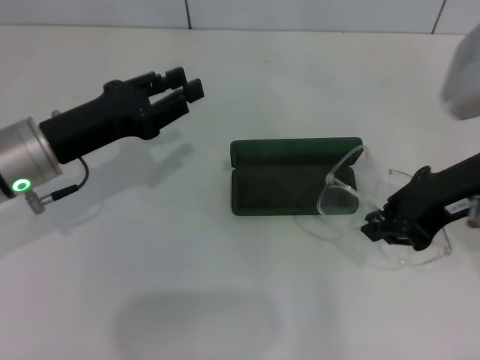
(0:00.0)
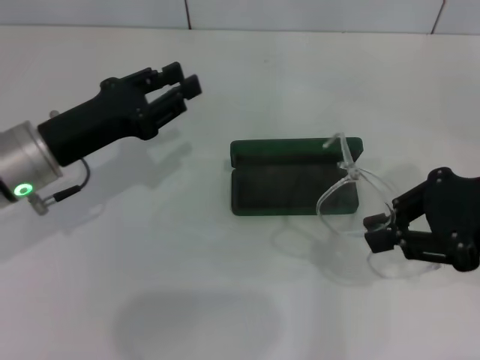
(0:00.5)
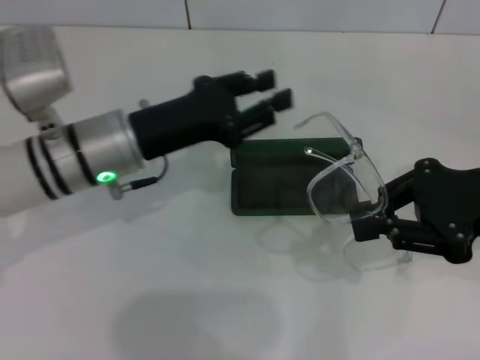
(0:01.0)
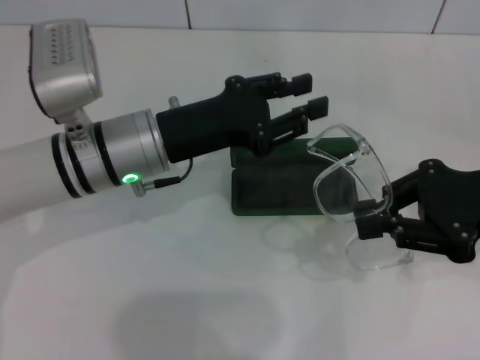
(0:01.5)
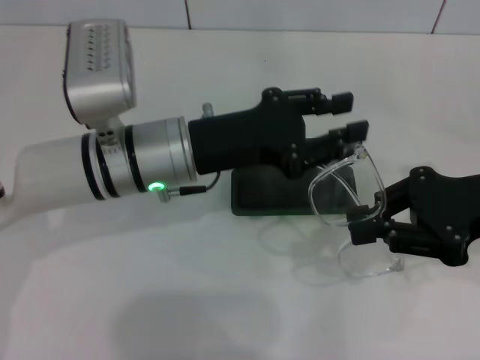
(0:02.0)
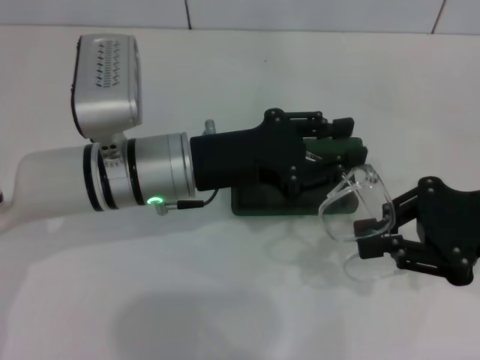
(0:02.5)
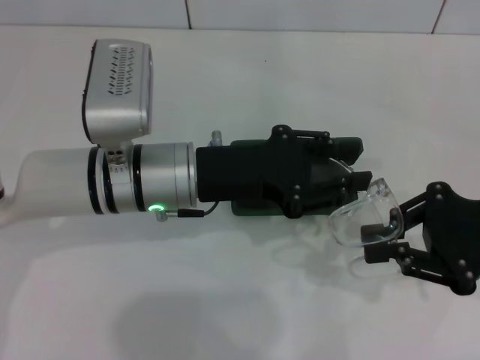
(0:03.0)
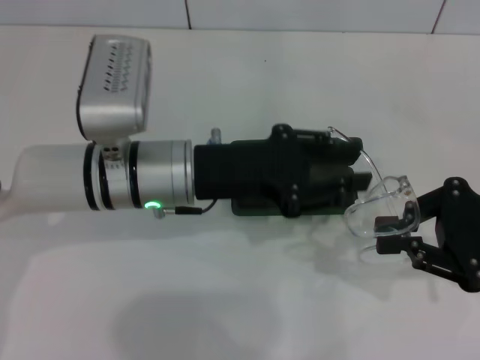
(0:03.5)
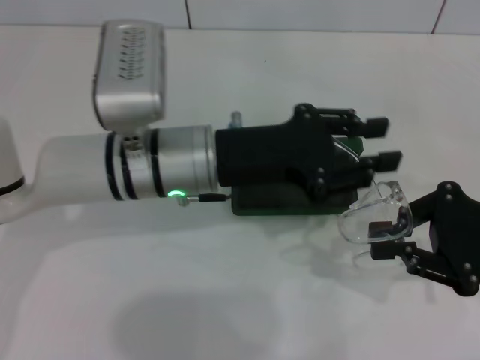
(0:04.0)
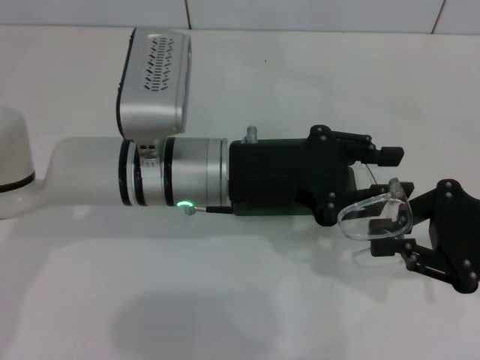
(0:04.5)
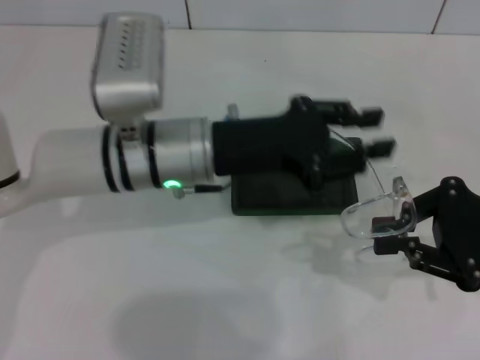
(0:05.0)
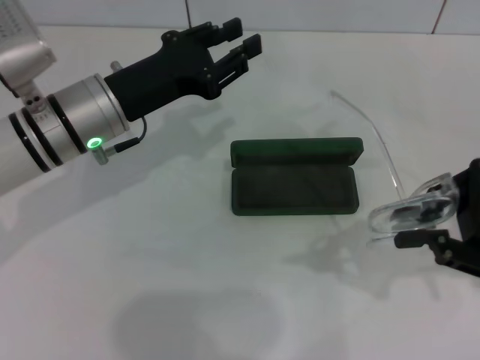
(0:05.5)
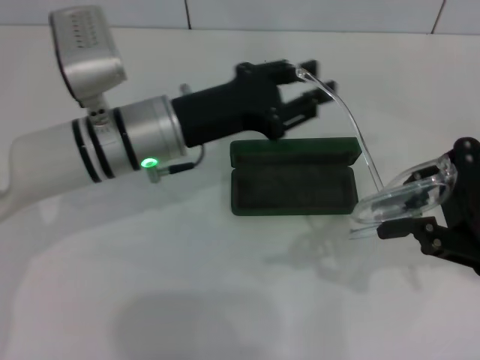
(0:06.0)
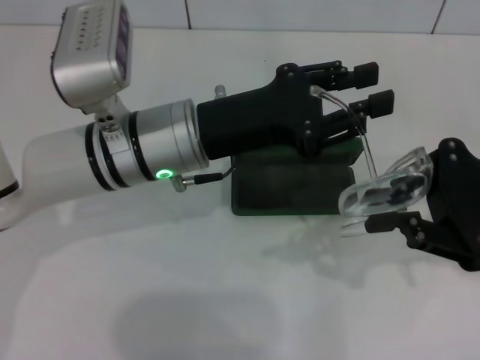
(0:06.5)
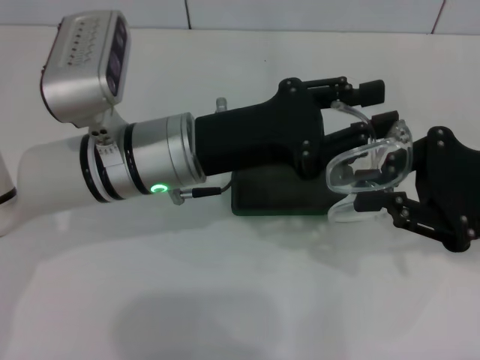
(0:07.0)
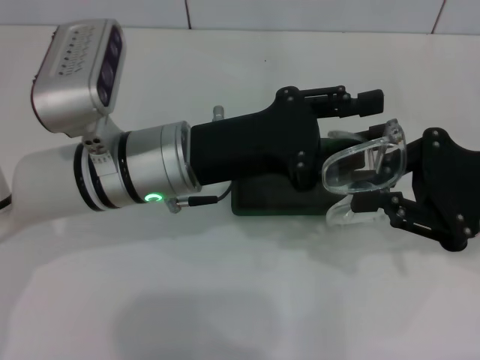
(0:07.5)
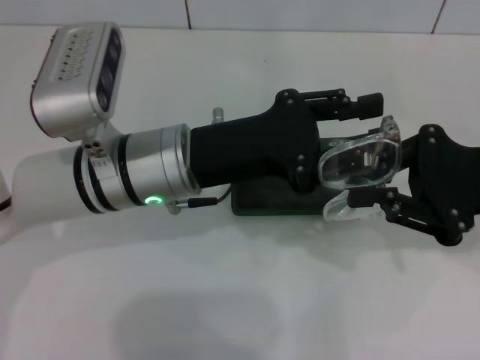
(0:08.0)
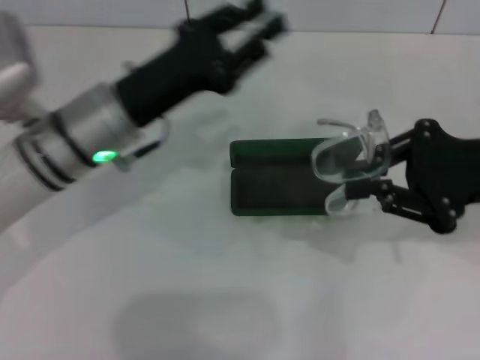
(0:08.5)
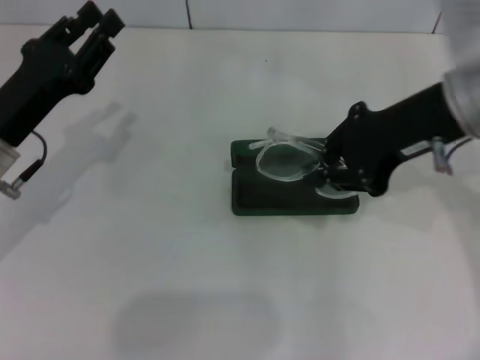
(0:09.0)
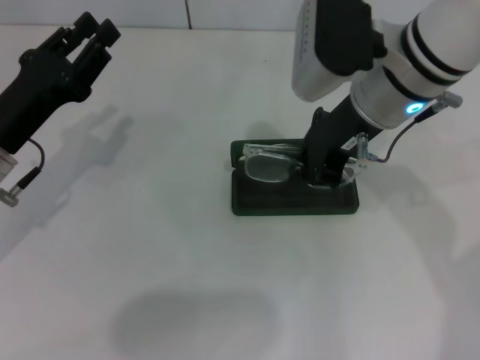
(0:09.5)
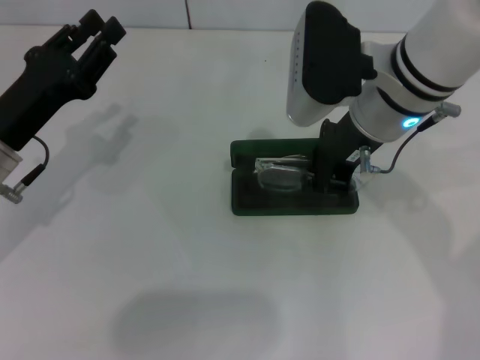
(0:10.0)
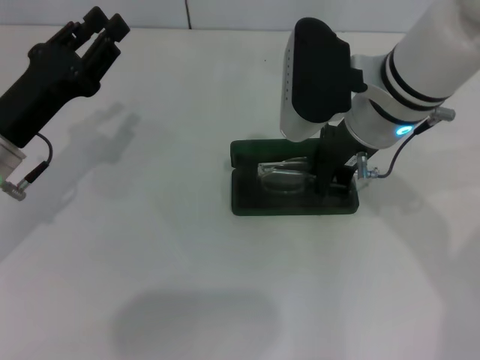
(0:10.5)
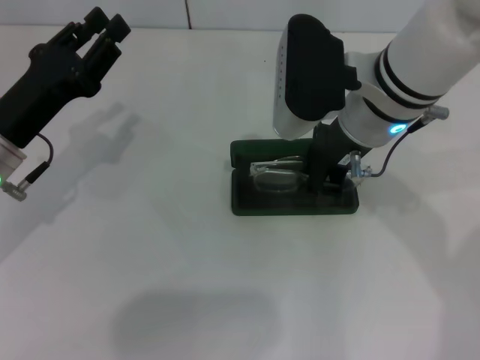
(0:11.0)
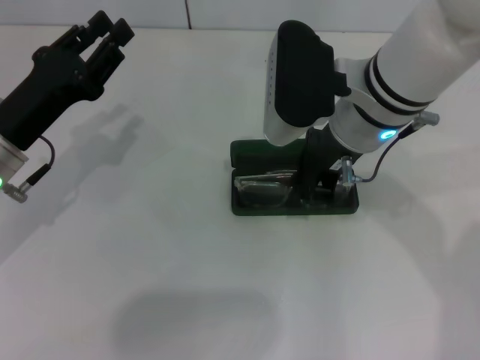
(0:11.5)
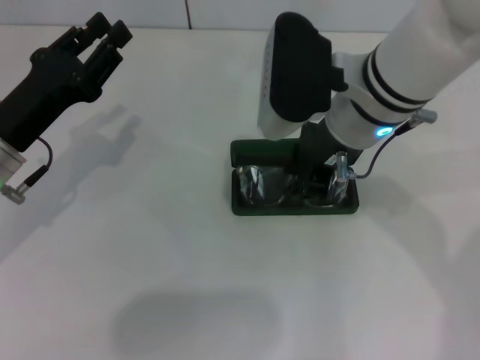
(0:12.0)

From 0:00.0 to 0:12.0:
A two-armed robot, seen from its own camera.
Step, from 0:00.0 to 0:08.0: Fold the frame with your left hand.
Step, from 0:08.5 to 0:12.0: Put the glasses into the case with your right hand.
From 0:00.0 to 0:02.0: The left gripper is displaced to the right by roughly 10 cm. The right gripper moves to the right, roughly 5 cm.
From 0:04.0 to 0:06.0: The left gripper moves approximately 10 cm to the left and comes back.
From 0:08.0 to 0:10.0: The right gripper travels to the left and forward by some 15 cm. Meanwhile the left gripper travels to the left by roughly 15 cm.
From 0:10.0 to 0:12.0: There are only small adjustments of the grippers.

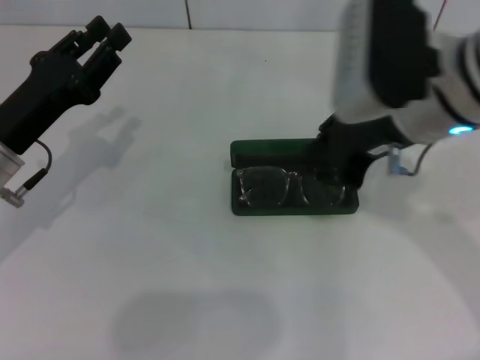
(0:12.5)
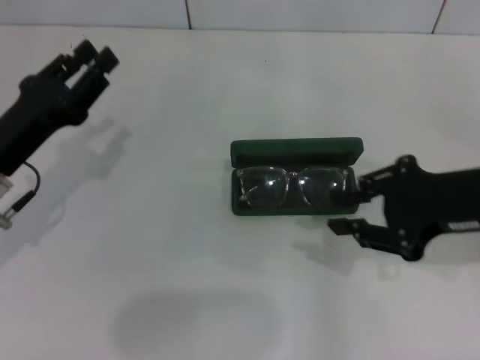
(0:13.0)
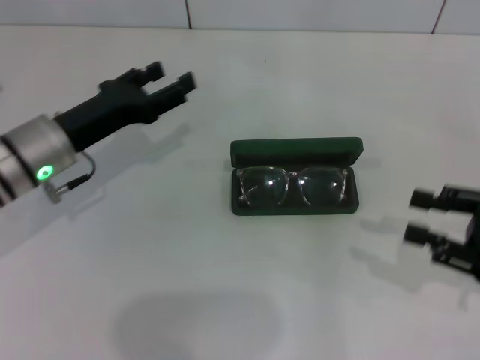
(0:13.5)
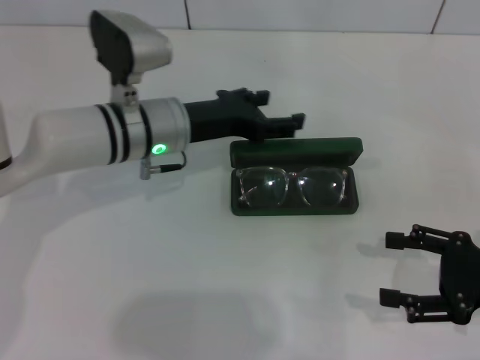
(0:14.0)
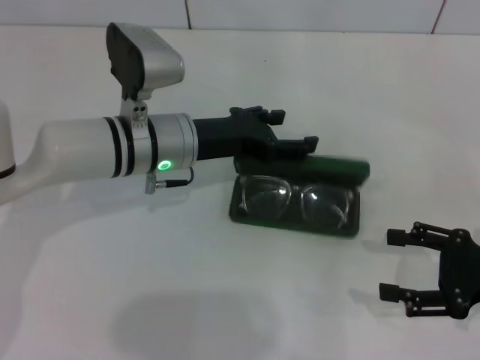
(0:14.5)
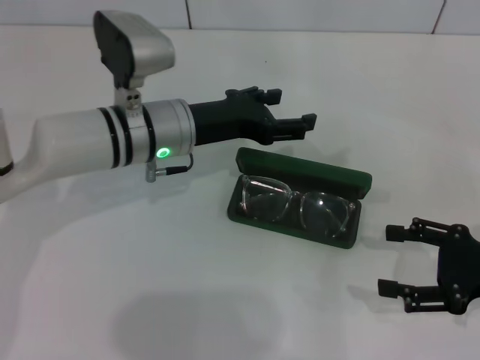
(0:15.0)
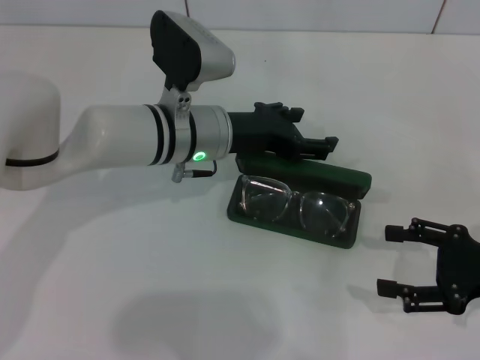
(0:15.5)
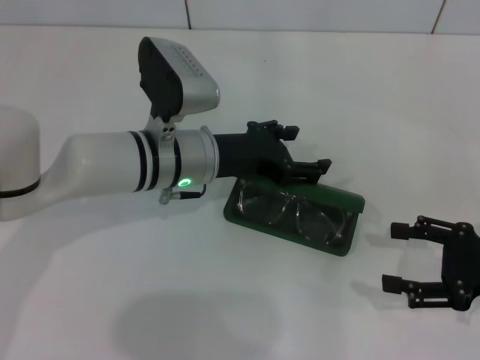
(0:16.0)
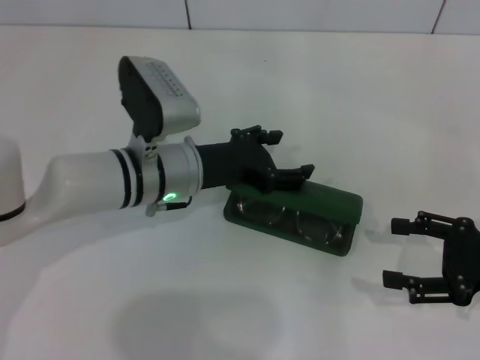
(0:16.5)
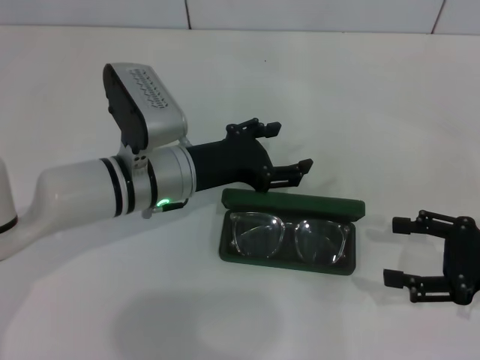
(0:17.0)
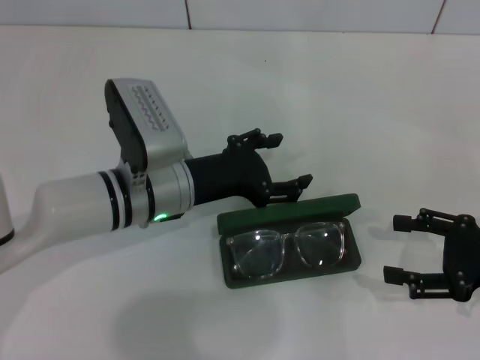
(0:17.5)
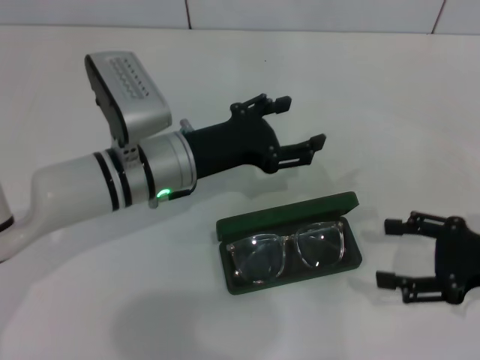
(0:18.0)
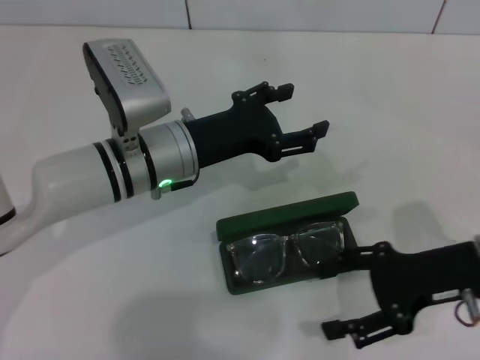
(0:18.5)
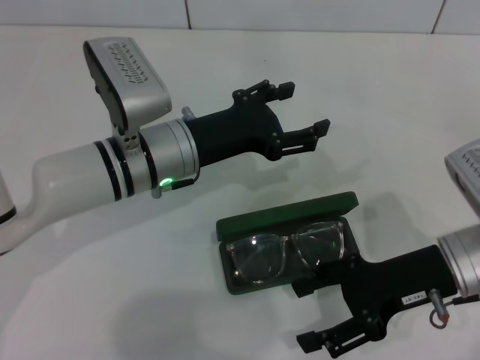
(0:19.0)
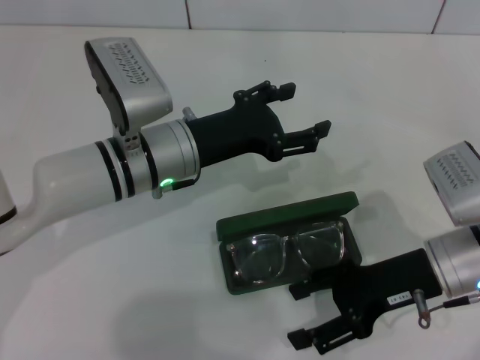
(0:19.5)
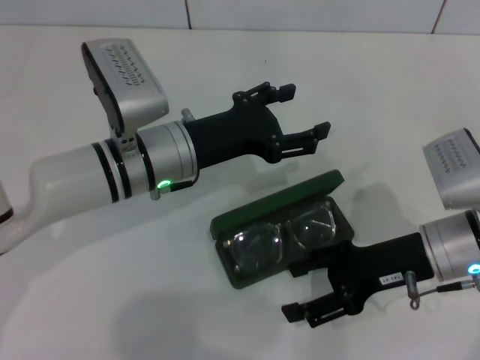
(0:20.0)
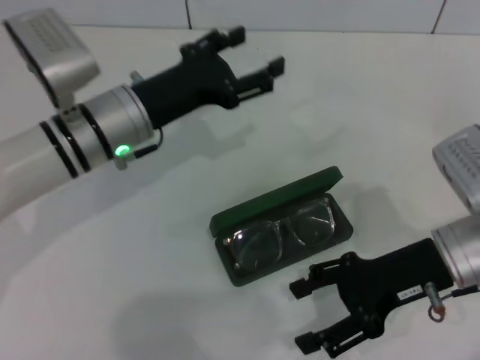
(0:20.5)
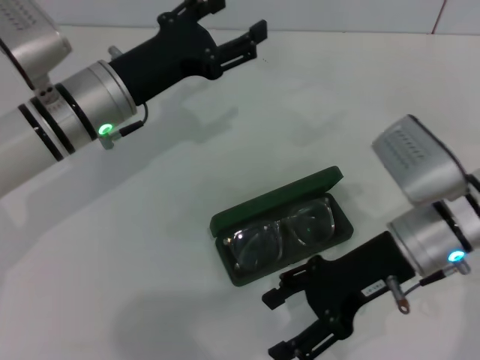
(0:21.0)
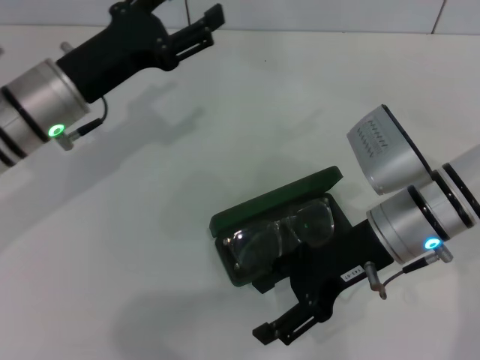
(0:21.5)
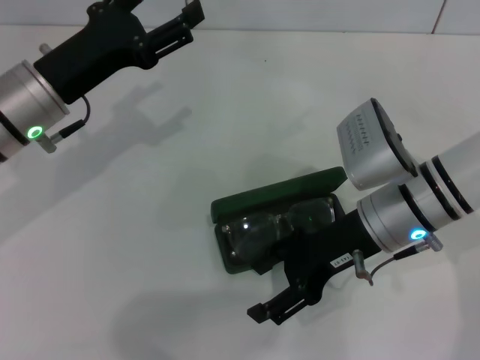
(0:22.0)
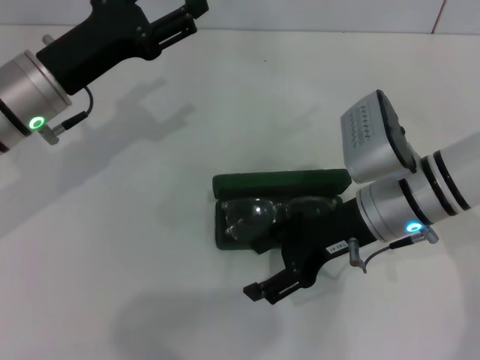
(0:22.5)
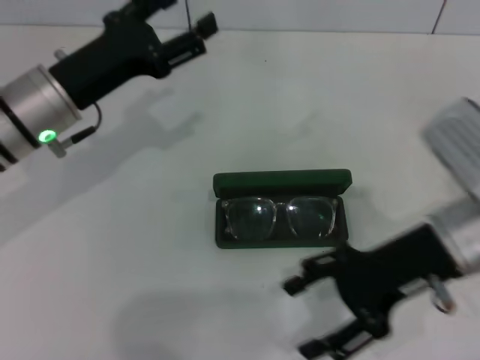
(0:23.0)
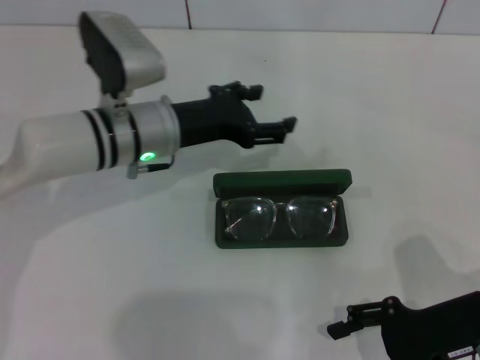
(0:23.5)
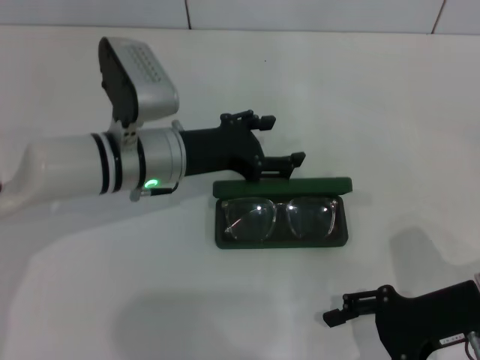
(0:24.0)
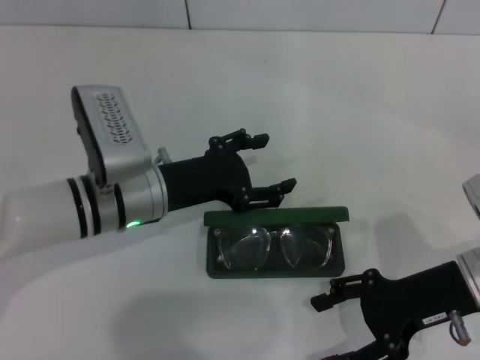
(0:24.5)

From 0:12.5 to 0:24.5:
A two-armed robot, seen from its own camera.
From 0:12.5 to 0:14.5: The left gripper moves to the right and forward, roughly 15 cm, and opens its fingers. Meanwhile the right gripper heads to the right, downward and backward, covering some 25 cm, and opens.
From 0:14.5 to 0:16.5: The grippers stay close to where they were, moving slightly.
From 0:16.5 to 0:18.5: The right gripper is displaced to the left by about 5 cm.
From 0:20.5 to 0:22.5: The two grippers go about 5 cm to the left.
From 0:22.5 to 0:24.5: The right gripper moves to the right and backward, approximately 10 cm. Meanwhile the left gripper shifts roughly 10 cm downward and to the right.

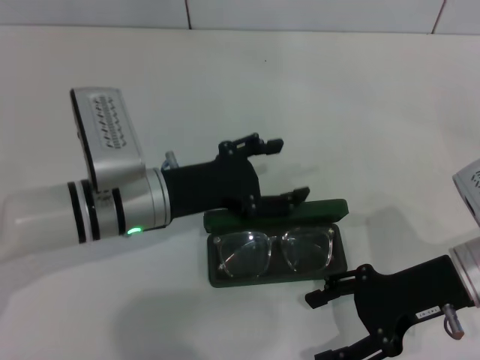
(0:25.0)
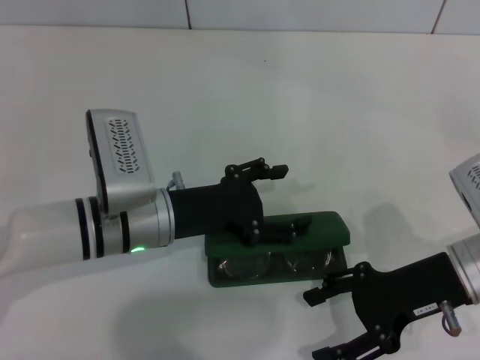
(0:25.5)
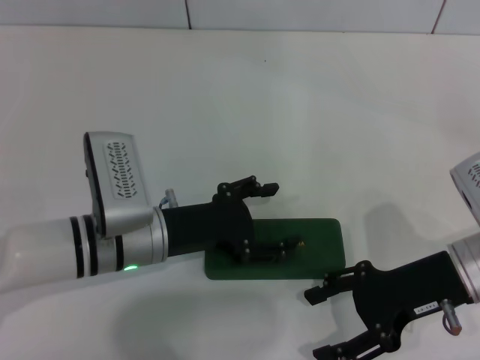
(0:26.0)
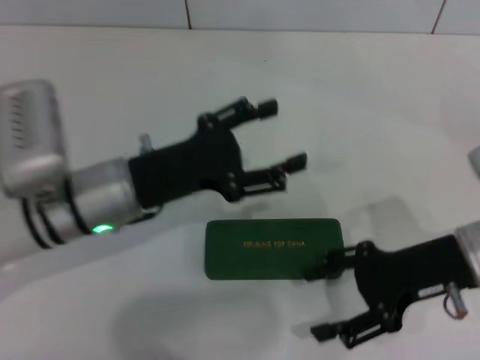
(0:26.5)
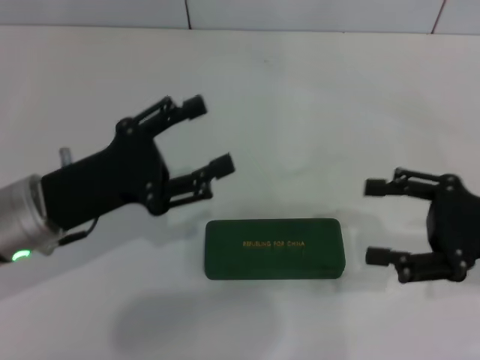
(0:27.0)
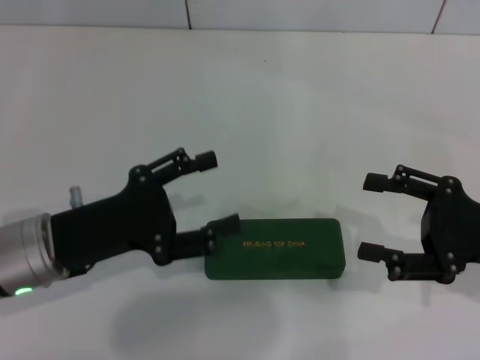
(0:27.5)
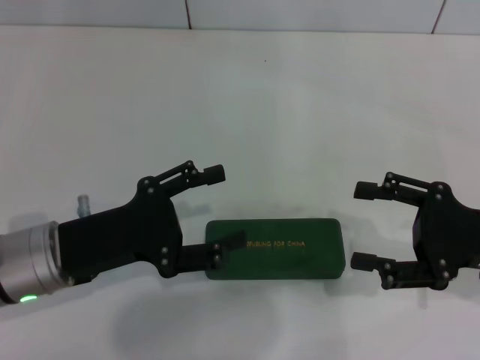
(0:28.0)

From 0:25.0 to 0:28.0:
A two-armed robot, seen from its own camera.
From 0:26.5 to 0:28.0: The right gripper heads to the right, covering roughly 5 cm. Meanwhile the left gripper shifts about 10 cm to the left and backward.
